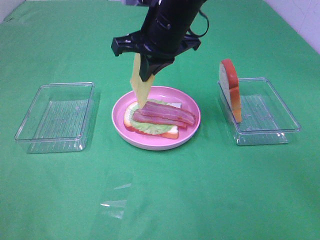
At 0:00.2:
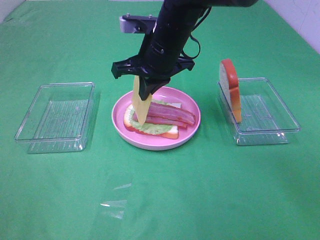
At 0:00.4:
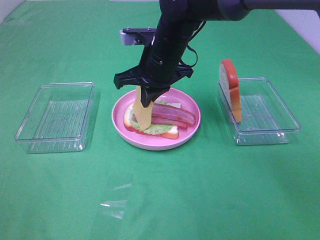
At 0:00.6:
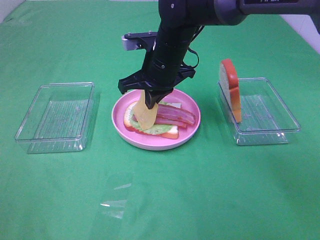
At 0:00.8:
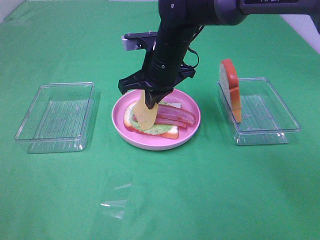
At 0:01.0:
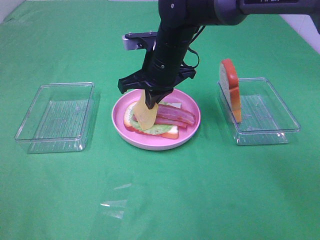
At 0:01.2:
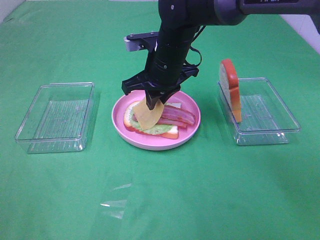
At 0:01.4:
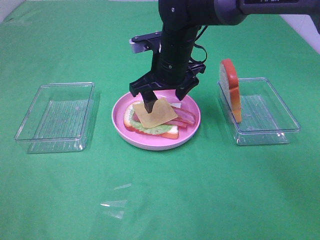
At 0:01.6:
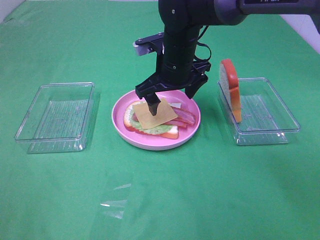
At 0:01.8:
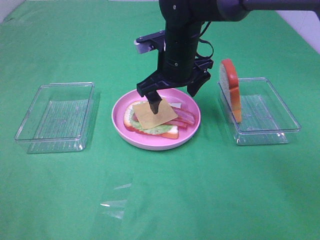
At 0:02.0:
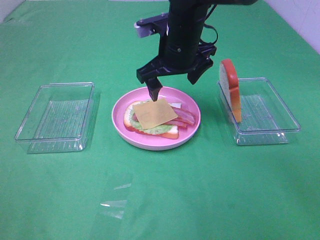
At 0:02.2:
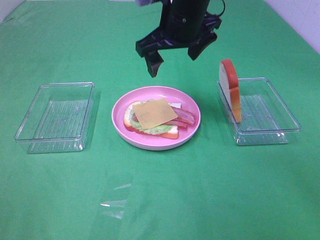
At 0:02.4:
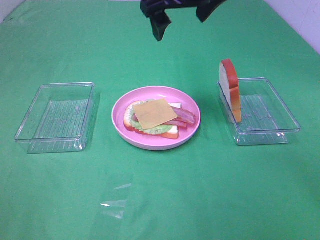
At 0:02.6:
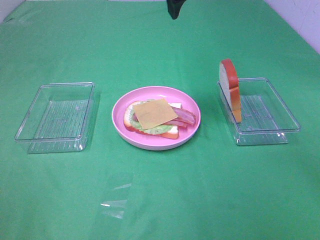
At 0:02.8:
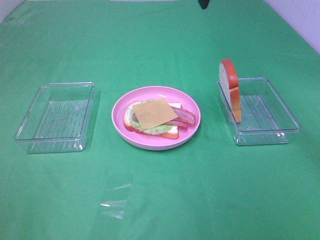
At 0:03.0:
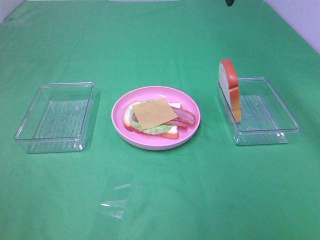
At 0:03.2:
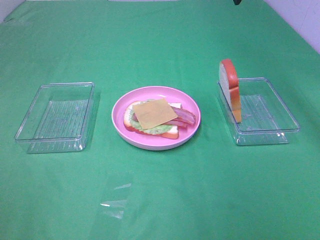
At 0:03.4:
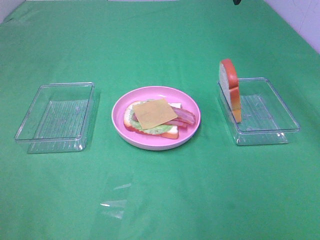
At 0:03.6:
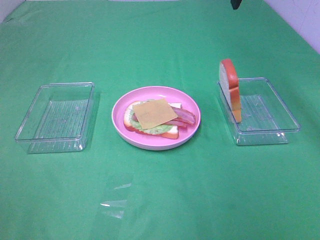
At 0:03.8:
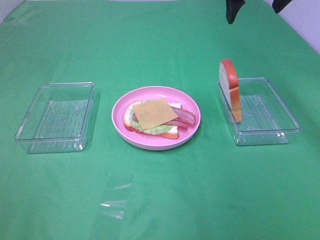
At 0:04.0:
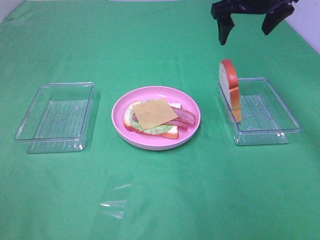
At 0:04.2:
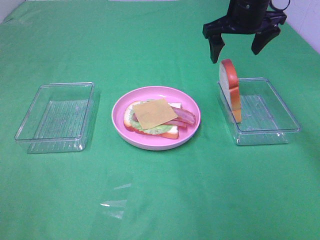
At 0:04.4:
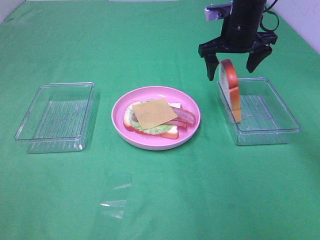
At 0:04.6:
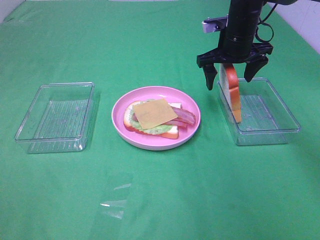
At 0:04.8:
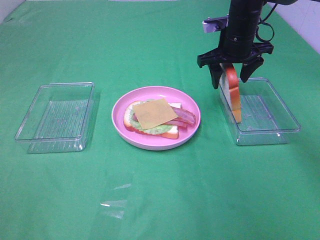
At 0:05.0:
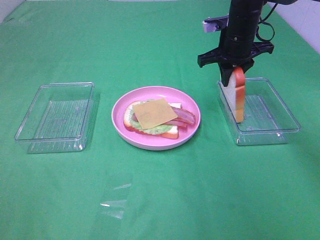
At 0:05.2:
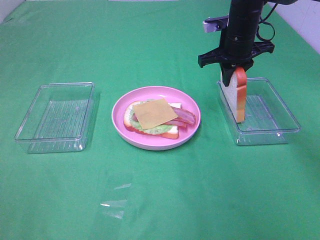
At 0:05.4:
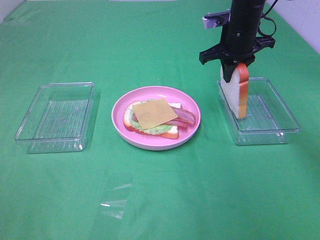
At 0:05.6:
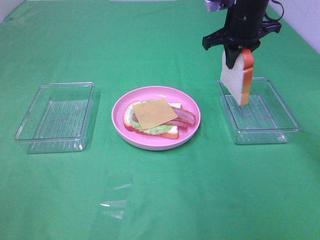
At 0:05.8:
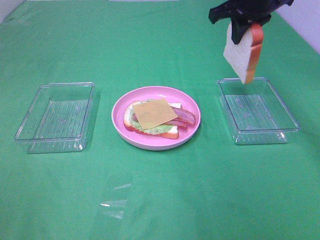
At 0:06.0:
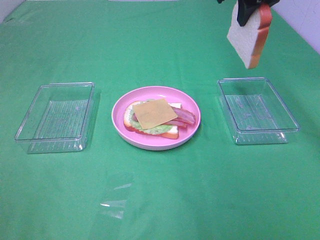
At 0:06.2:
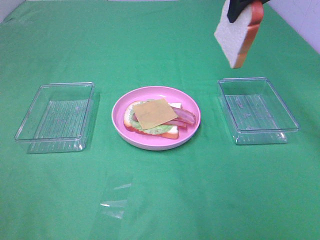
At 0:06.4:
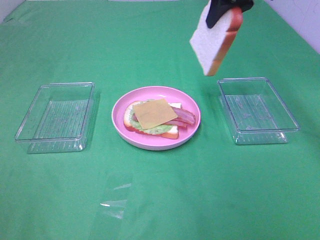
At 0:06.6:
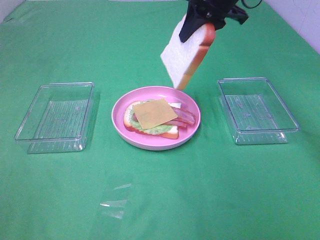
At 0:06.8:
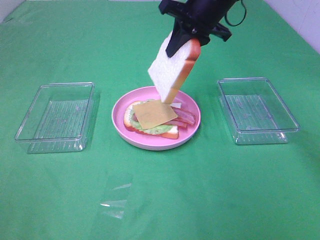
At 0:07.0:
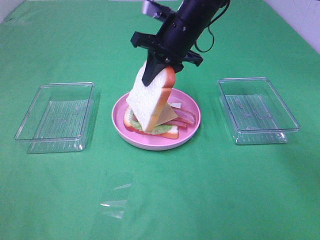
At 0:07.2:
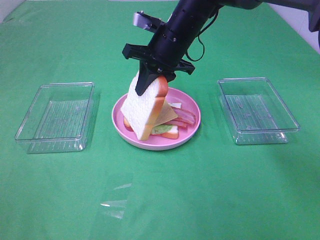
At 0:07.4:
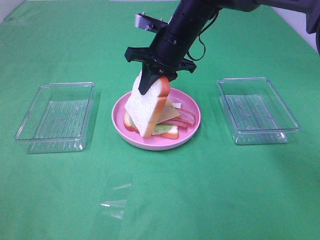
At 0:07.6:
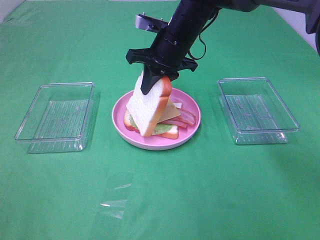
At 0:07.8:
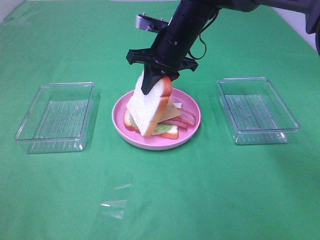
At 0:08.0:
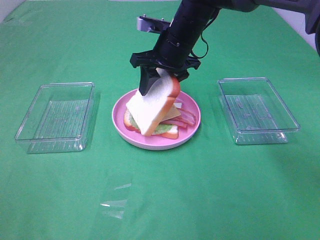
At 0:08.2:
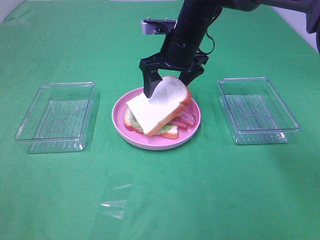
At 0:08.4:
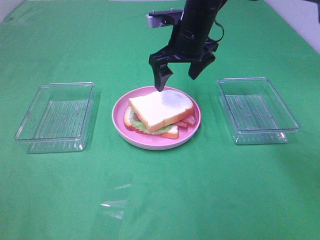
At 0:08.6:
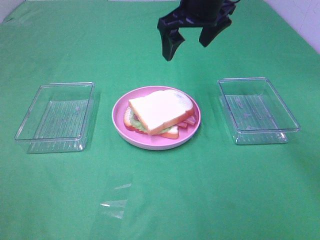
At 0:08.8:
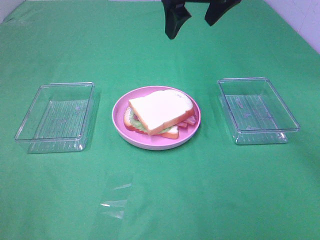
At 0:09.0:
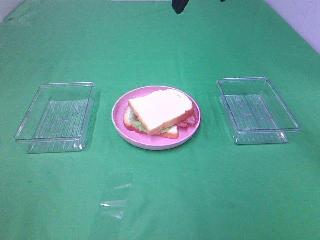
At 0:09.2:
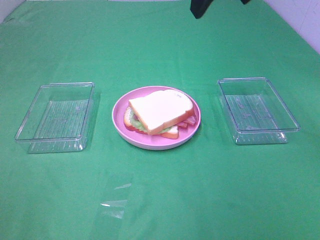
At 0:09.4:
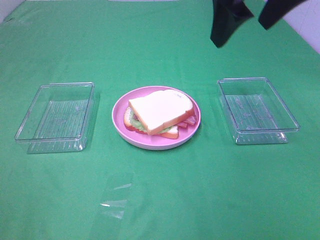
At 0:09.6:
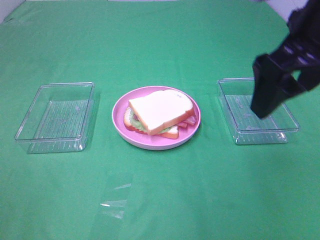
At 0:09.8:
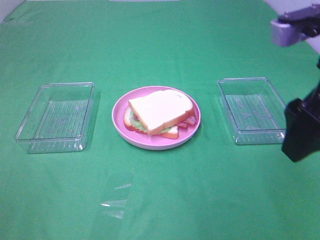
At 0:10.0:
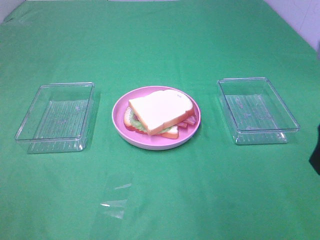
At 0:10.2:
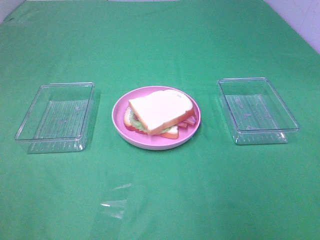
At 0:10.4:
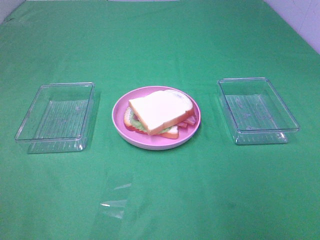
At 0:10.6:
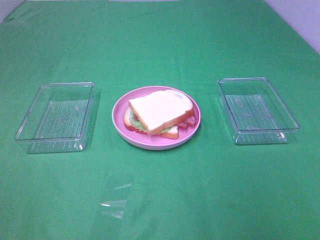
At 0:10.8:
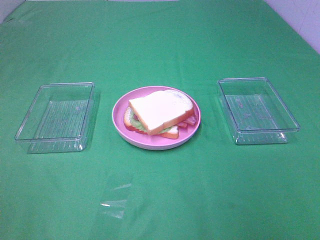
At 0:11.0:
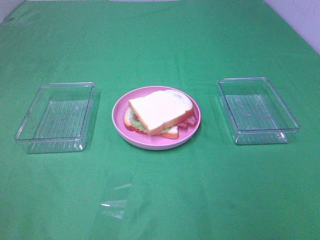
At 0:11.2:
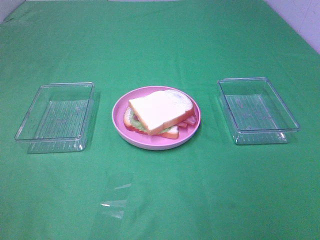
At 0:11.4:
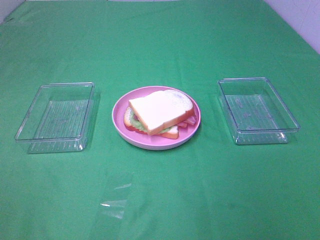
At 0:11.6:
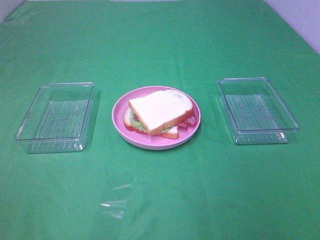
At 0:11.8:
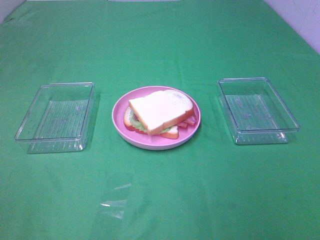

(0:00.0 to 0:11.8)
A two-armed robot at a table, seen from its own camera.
Task of the whole recording: Make sandwiches.
Step, 0:00.0 - 0:02.0: Right hand:place the cheese slice on top of the bacon.
Step, 0:02.2 - 0:05.0: Right hand:grab the bread slice.
Step, 0:05.2 - 0:08.4: Right hand:place the bread slice on the plate.
0:00.0 - 0:01.4: The right gripper goes roughly 10 cm downward, and opens.
0:01.4 - 0:03.0: The right gripper shifts roughly 25 cm upward and to the right.
0:03.0 - 0:04.4: The right gripper goes roughly 15 cm downward.
0:04.4 - 0:06.0: The right gripper is displaced upward by some 10 cm, and closes up.
0:06.0 - 0:07.4: The right gripper heads downward and to the left, covering roughly 20 cm.
0:07.4 - 0:08.8: The right gripper shifts roughly 15 cm upward, and opens its fingers.
0:08.8 - 0:10.4: The right gripper is displaced backward and to the right by roughly 40 cm.

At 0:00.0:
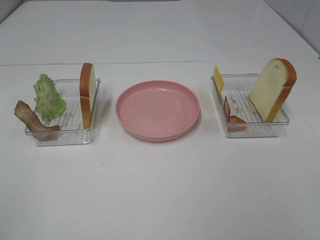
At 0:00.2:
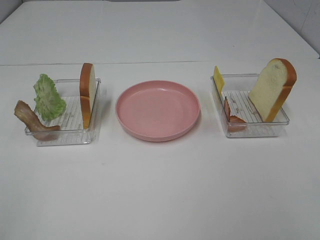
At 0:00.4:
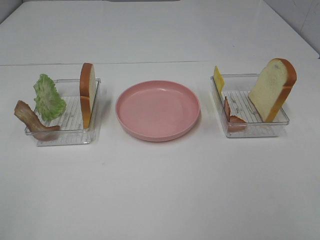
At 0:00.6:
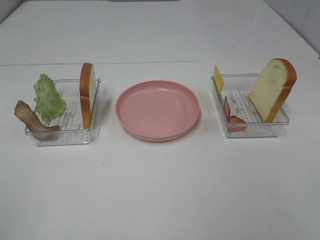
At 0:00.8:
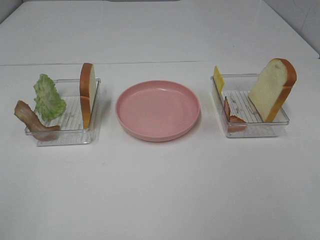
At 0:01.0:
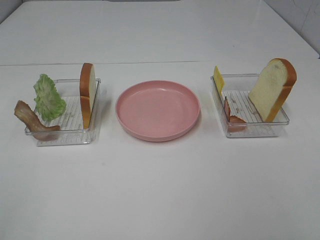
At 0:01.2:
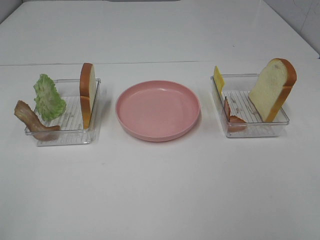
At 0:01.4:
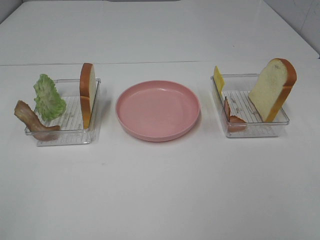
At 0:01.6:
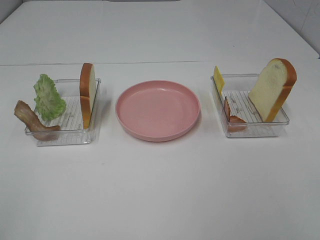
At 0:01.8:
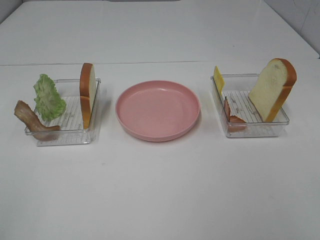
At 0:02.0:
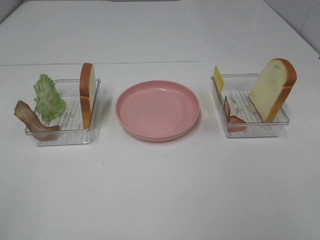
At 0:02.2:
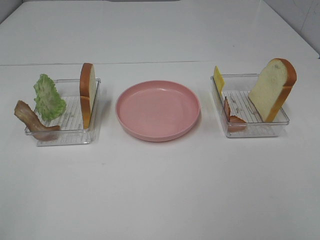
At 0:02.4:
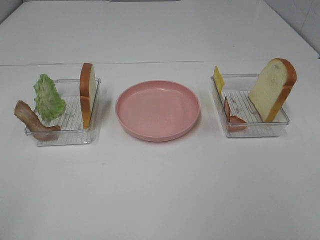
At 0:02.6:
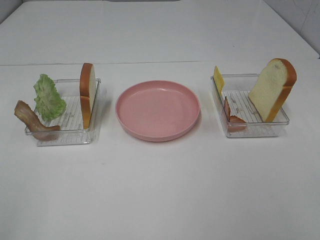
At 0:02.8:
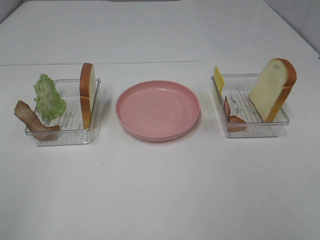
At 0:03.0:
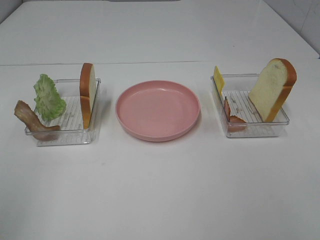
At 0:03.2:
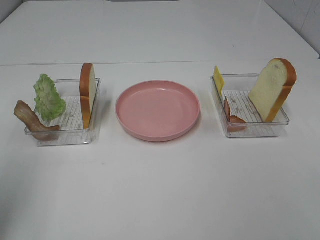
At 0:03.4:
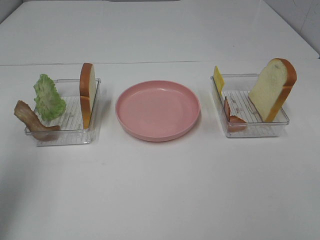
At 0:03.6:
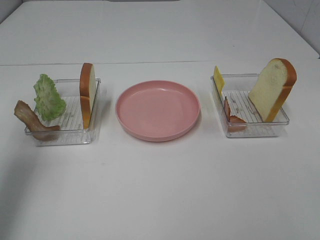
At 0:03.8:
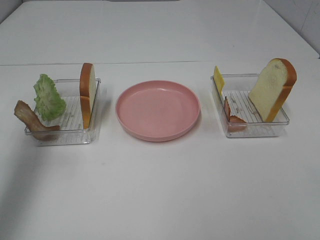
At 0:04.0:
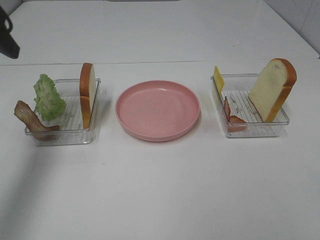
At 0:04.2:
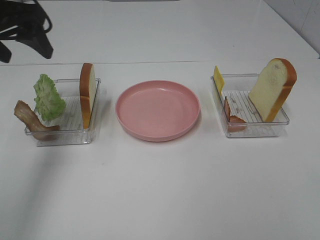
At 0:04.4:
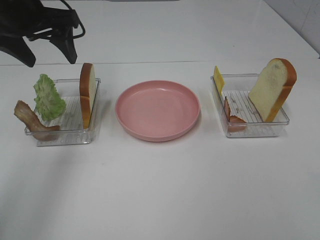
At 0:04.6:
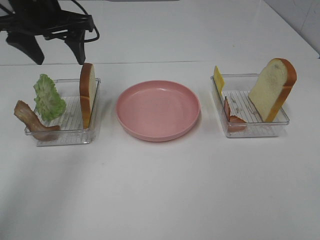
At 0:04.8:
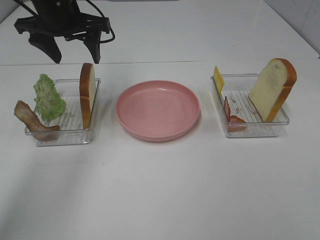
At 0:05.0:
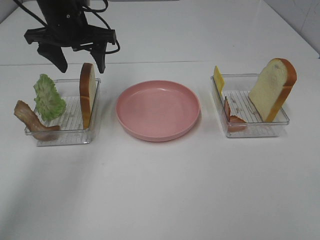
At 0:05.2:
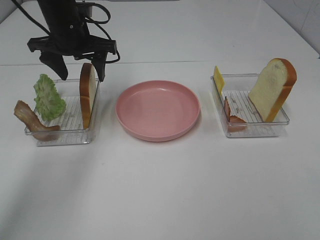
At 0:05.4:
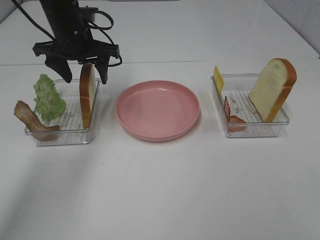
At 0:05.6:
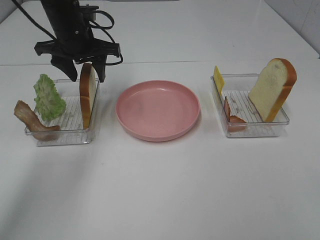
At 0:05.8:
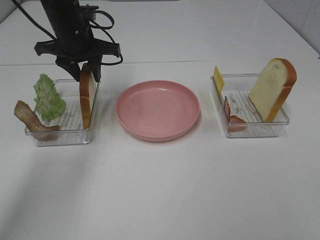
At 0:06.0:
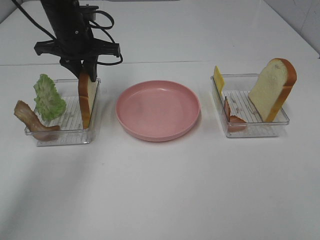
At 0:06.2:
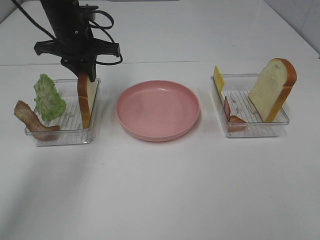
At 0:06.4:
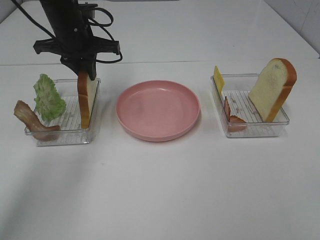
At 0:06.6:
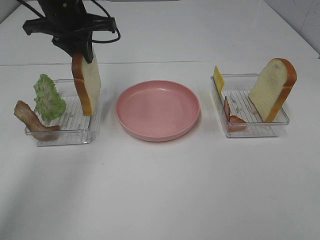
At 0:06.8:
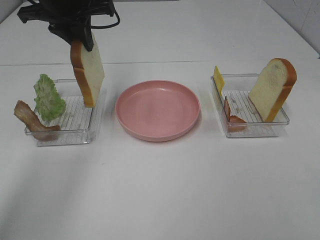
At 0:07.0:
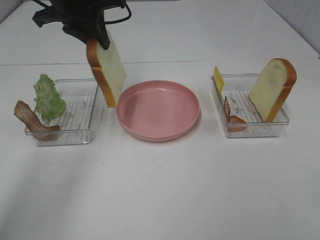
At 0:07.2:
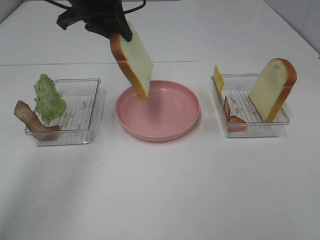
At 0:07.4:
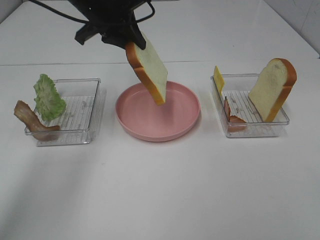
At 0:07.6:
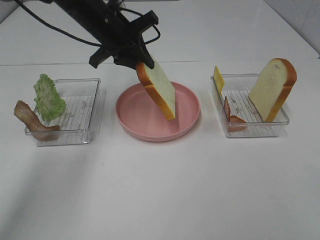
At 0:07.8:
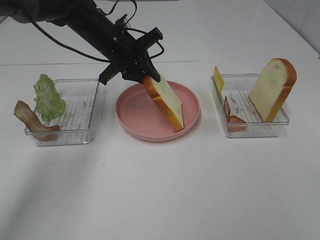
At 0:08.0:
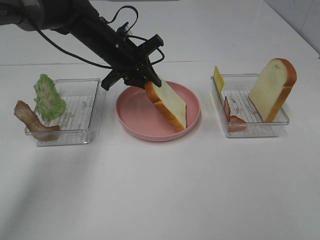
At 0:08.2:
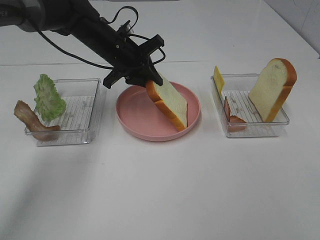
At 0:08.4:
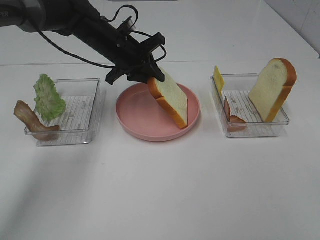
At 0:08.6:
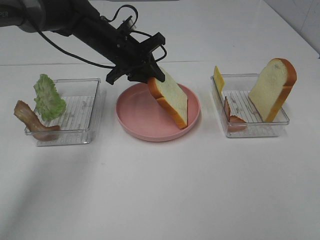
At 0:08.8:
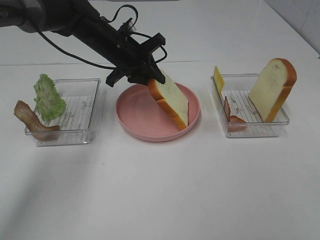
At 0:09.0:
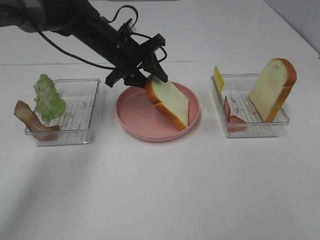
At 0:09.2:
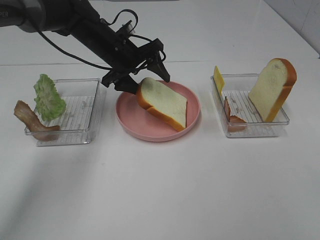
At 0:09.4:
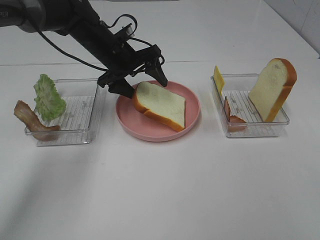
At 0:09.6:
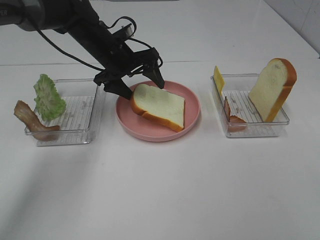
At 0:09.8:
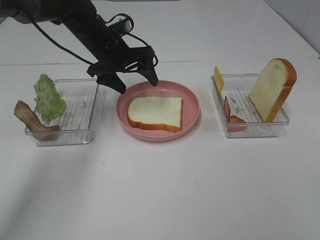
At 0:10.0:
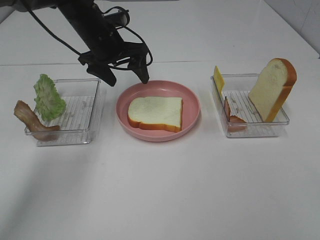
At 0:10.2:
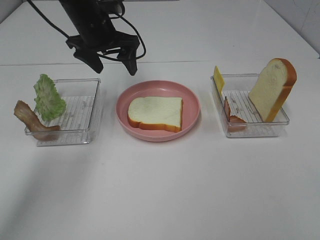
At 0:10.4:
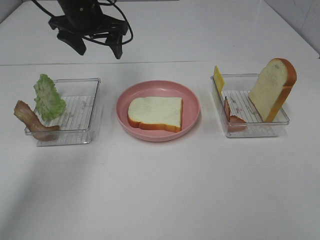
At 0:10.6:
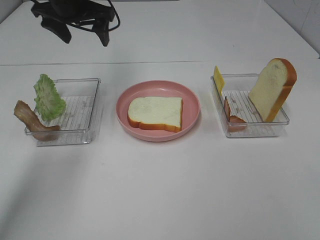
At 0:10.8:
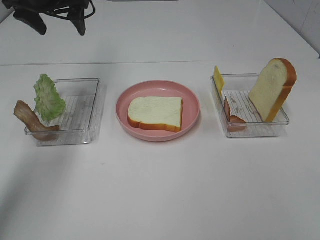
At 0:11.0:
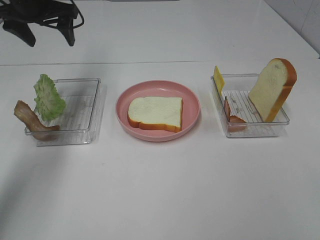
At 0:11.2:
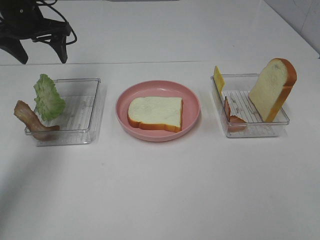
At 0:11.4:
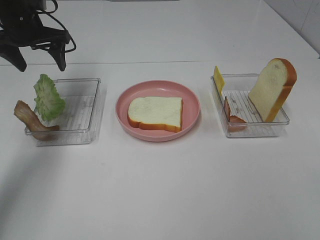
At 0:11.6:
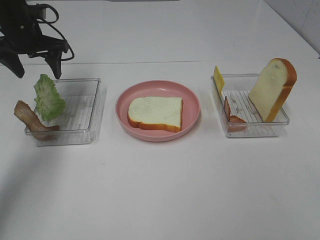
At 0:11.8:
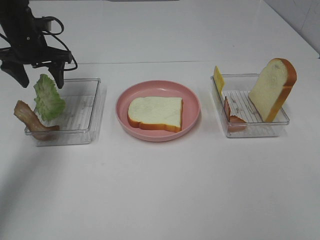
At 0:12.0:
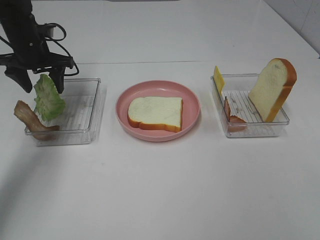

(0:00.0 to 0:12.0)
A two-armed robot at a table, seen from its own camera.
Task of the whole recording: Make sandwiches.
Step, 0:00.0 - 0:06.2: Left hand:grab the bread slice.
Step, 0:06.4 - 0:10.0: Left hand:place the bread slice on the plate.
0:00.0 - 0:01.6: Both grippers stay about where they are.
0:03.0 - 0:04.4: The left gripper heads forward, covering some 30 cm.
0:04.4 - 0:06.0: The left gripper moves downward and forward, approximately 10 cm, and closes its fingers.
0:06.0 - 0:07.6: The left gripper moves to the right, some 5 cm, and goes upward and returns, approximately 10 cm each way.
0:07.6 - 0:09.0: The left gripper changes place by roughly 5 cm.
0:09.0 - 0:10.4: The left gripper moves upward and to the left, roughly 10 cm, and opens its fingers.
0:10.4 - 0:12.0: The left gripper goes approximately 15 cm to the left and downward.
